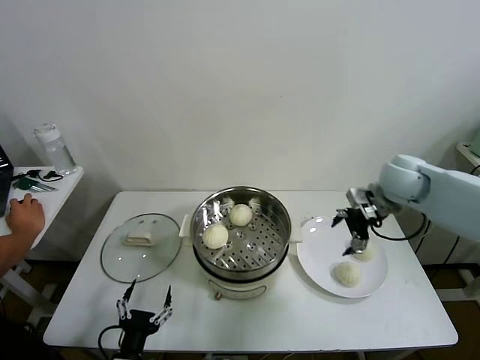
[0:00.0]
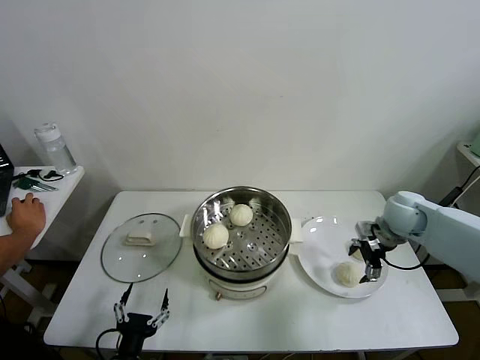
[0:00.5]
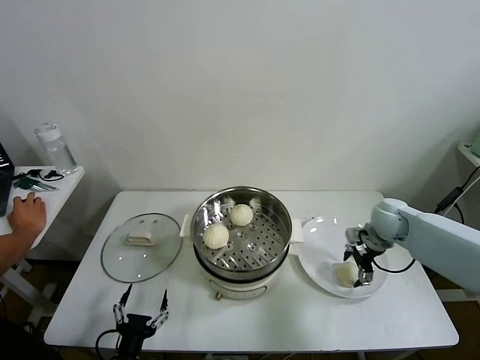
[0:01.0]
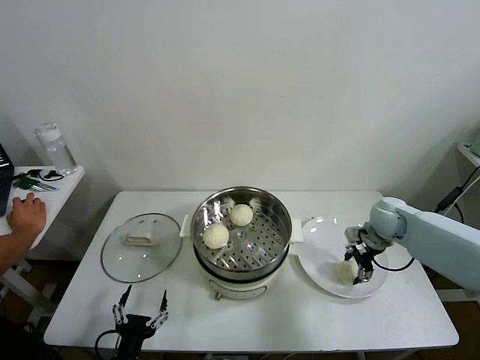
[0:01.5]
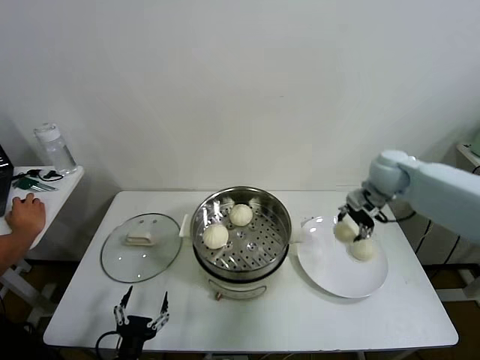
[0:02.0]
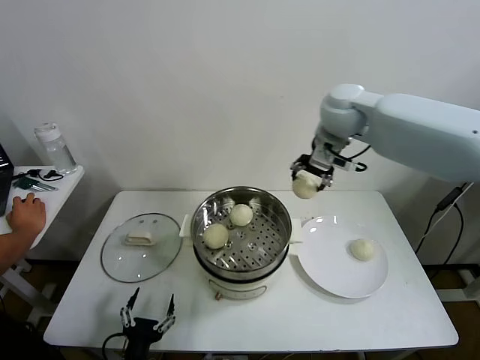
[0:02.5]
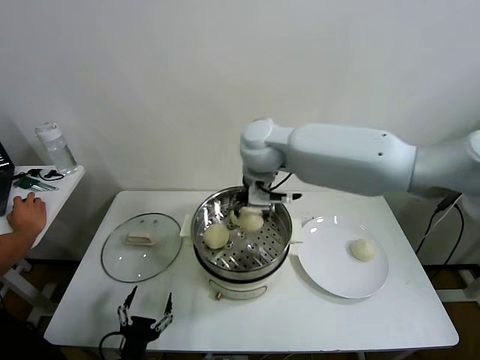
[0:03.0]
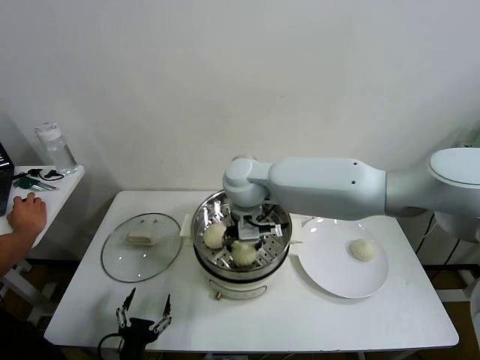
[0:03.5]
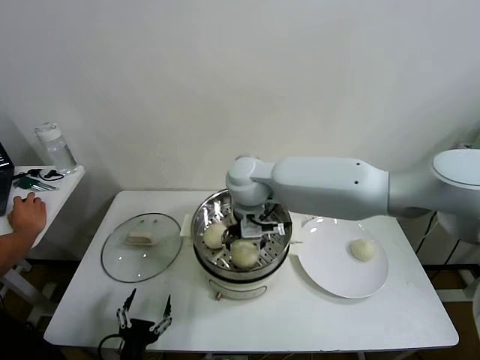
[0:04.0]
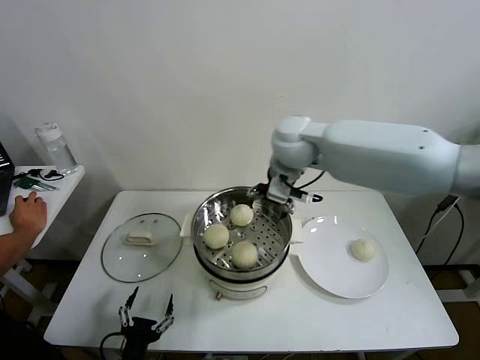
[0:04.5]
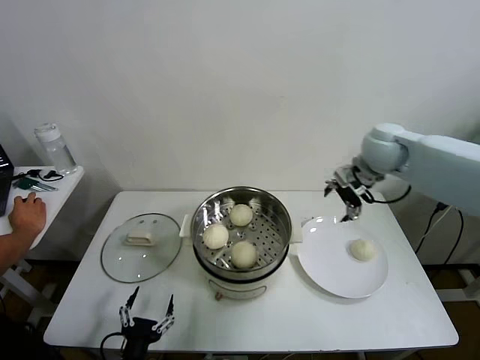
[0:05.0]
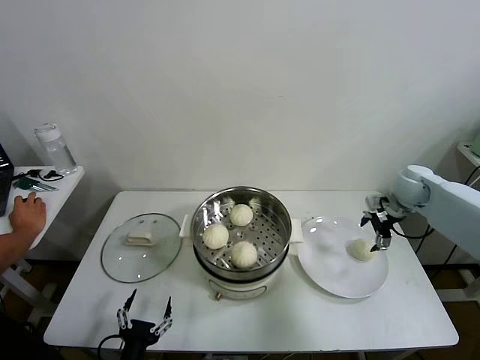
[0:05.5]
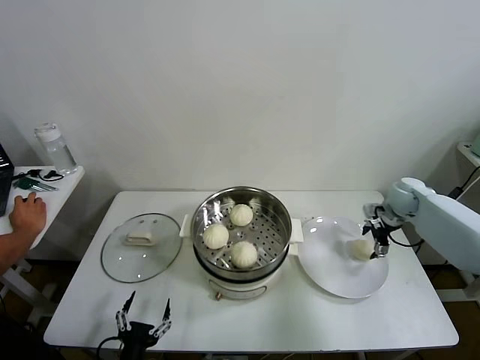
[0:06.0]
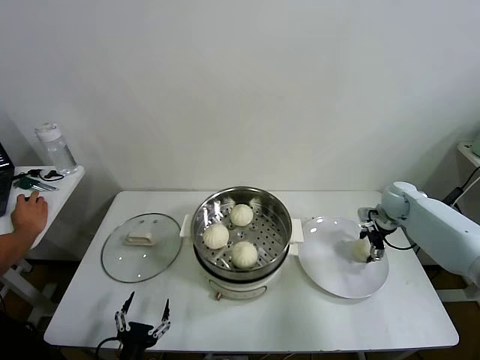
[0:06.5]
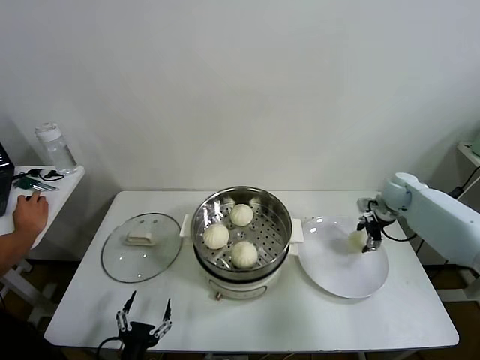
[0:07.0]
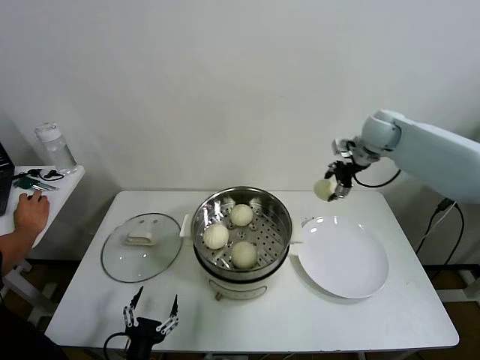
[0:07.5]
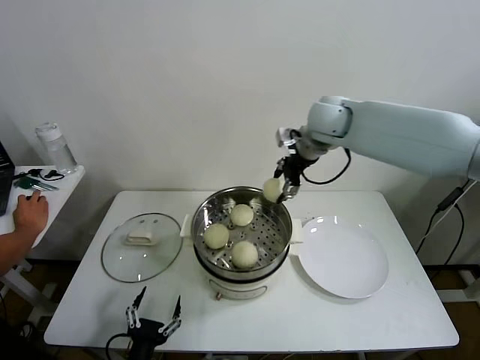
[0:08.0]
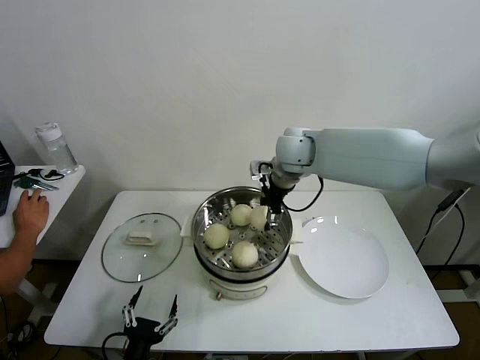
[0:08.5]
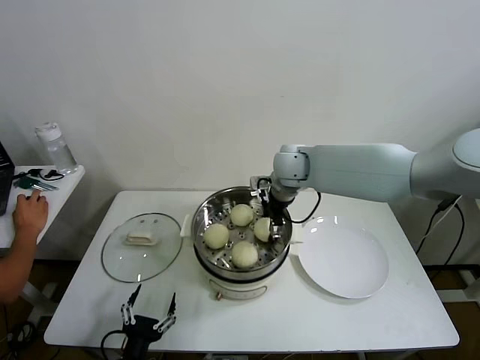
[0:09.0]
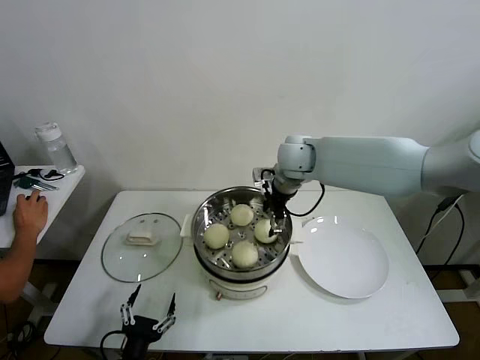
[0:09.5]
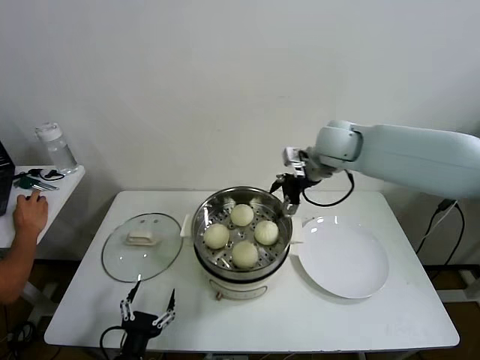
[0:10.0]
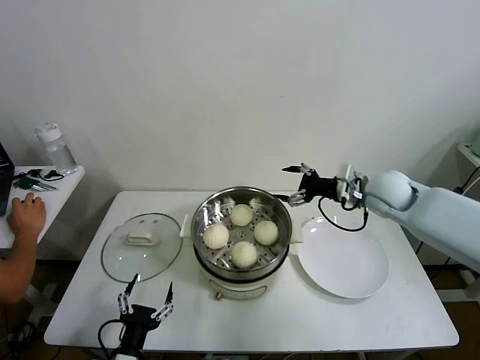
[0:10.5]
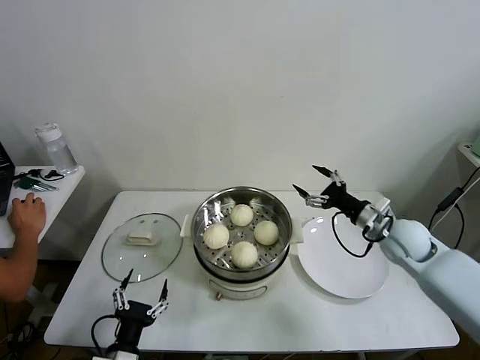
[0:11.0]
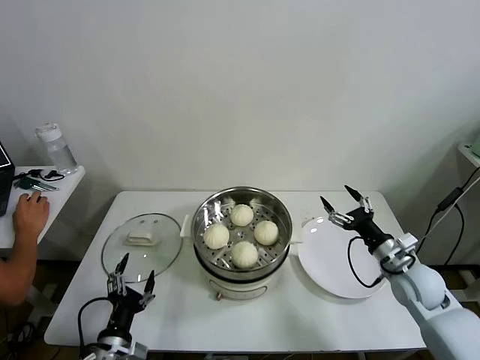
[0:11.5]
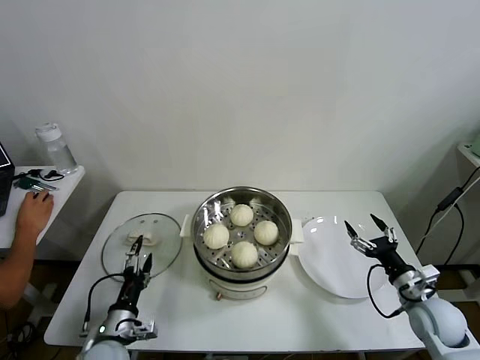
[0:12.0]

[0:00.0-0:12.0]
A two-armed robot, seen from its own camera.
Task of the whole recording: take steamed baozi put them in steamer then cover it.
Step, 0:01.5 to 0:03.5: Place the baozi on the steamer with right gripper.
Step, 0:04.0 to 0:06.5: Grasp the baozi in the plate with right gripper.
Step, 0:07.0 to 0:09.0: Place the baozi on the steamer with right gripper.
0:00.0 to 0:02.0: The right gripper moves forward, roughly 5 cm, moves roughly 10 cm downward and comes back, and closes up.
0:02.0 to 0:04.0: The right gripper shifts about 30 cm to the left, and opens up.
0:04.0 to 0:06.0: The right gripper goes some 40 cm to the right.
0:06.0 to 0:08.0: The right gripper heads to the left and upward, covering about 35 cm, and closes its fingers.
0:08.0 to 0:10.0: The right gripper opens up.
0:10.0 to 0:12.0: The left gripper shifts roughly 10 cm forward; the right gripper travels downward, backward and to the right by some 40 cm.

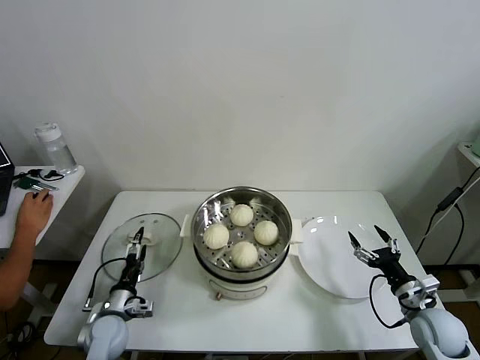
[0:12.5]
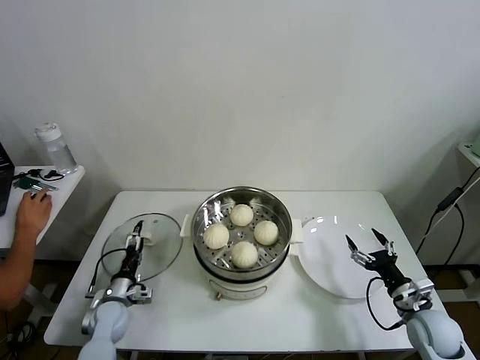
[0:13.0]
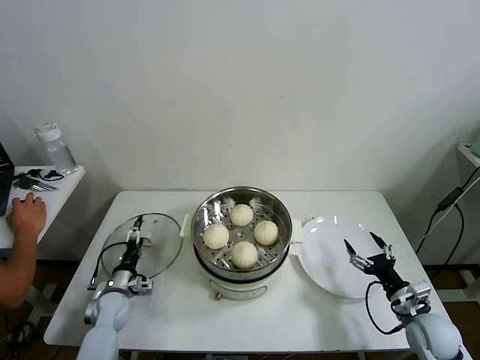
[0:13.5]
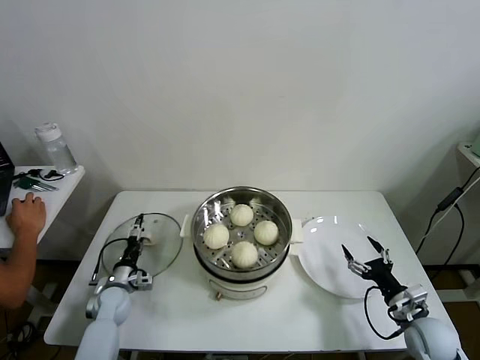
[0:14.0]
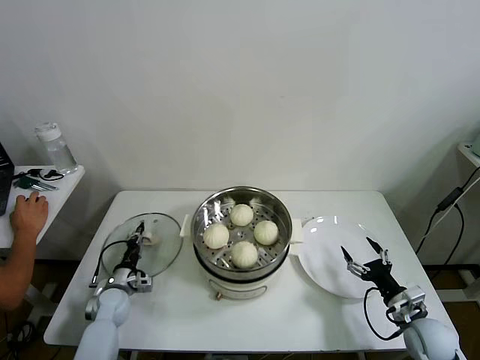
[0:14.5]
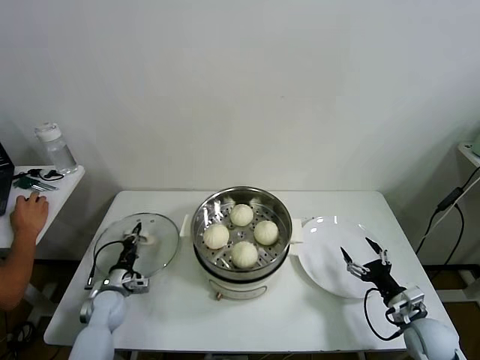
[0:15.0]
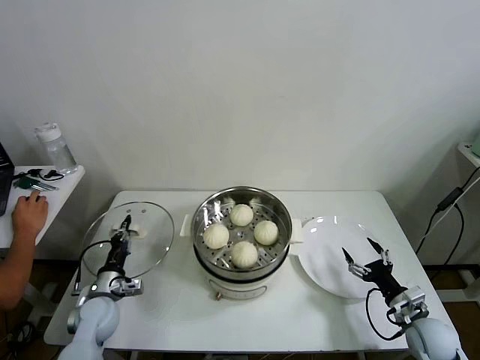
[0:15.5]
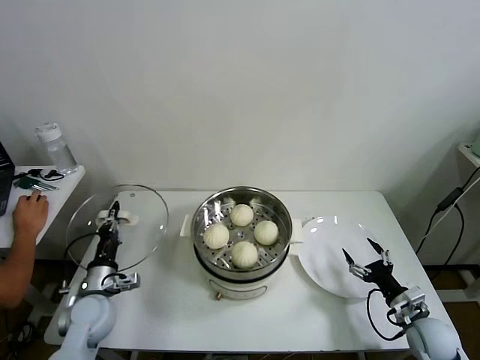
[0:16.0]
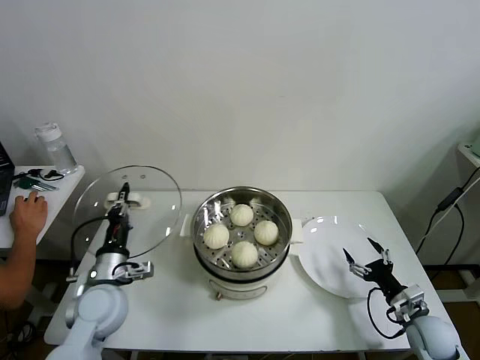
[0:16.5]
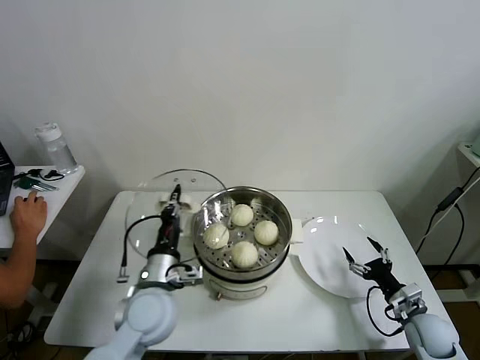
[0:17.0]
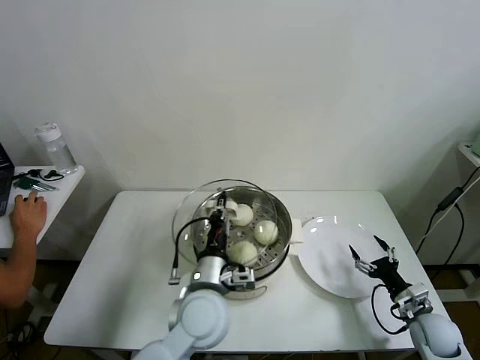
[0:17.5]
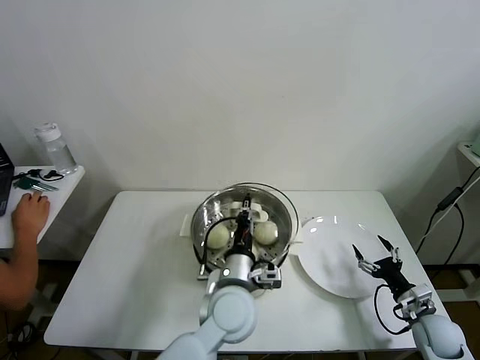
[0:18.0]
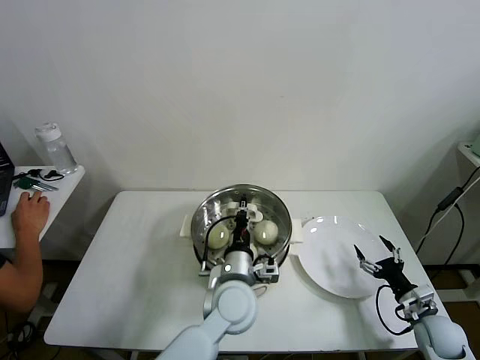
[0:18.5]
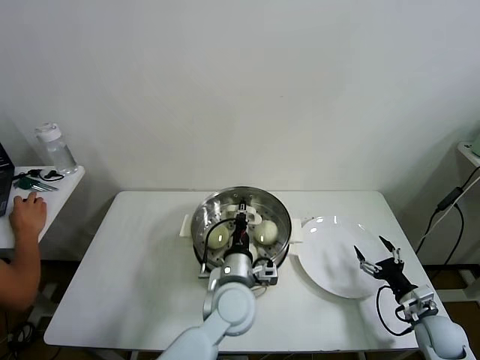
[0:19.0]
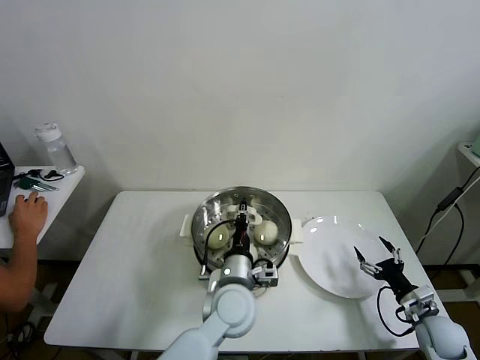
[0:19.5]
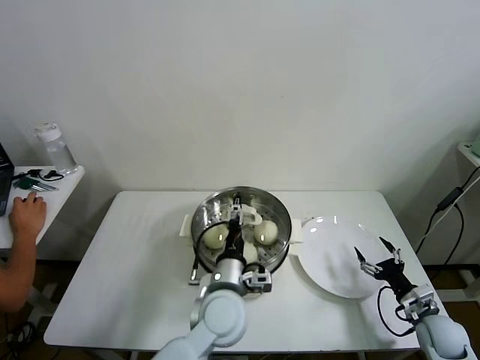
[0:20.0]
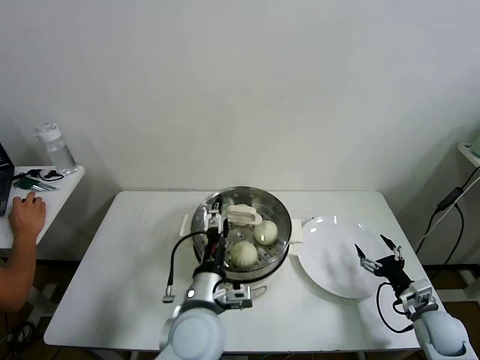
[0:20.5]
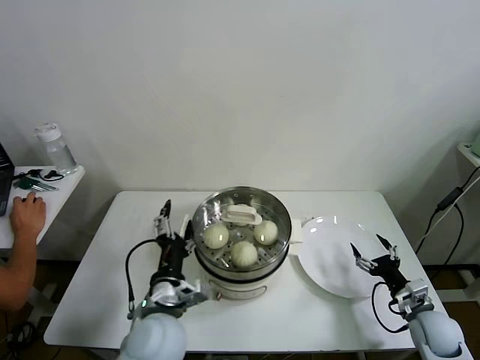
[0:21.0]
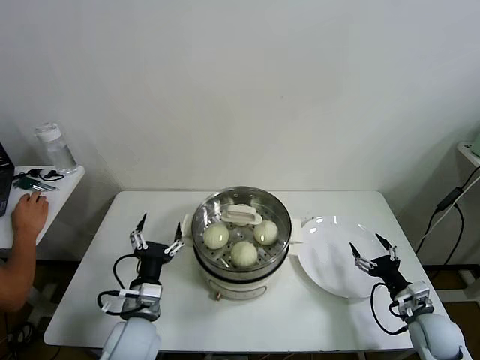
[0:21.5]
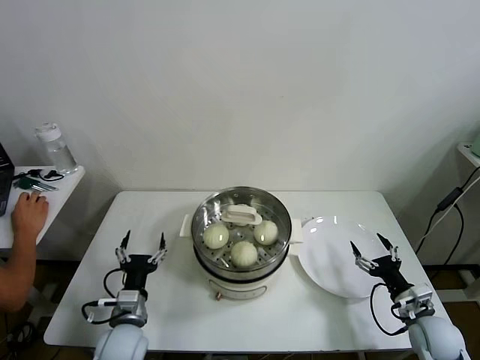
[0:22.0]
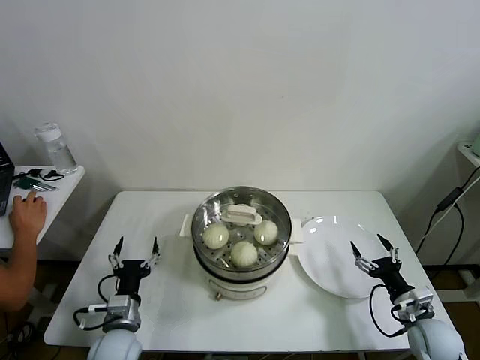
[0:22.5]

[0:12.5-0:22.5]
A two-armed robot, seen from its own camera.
Task of the whole recording: take steamed baozi put them in steamer then cover it.
Step, 0:12.5 to 0:14.5: Grasp the pot lid with left gripper.
Step, 0:15.0 to 0:19.5: Place the pot lid on the steamer with left gripper.
0:12.5 to 0:14.5: The left gripper travels forward by roughly 10 cm, and closes up.
0:14.5 to 0:16.5: The left gripper travels upward by about 20 cm.
0:16.5 to 0:18.5: The left gripper is displaced to the right by approximately 25 cm.
0:18.5 to 0:20.5: The left gripper shifts about 10 cm backward and to the left, and opens up.
0:20.5 to 0:22.5: The left gripper travels to the left and downward by about 25 cm.
